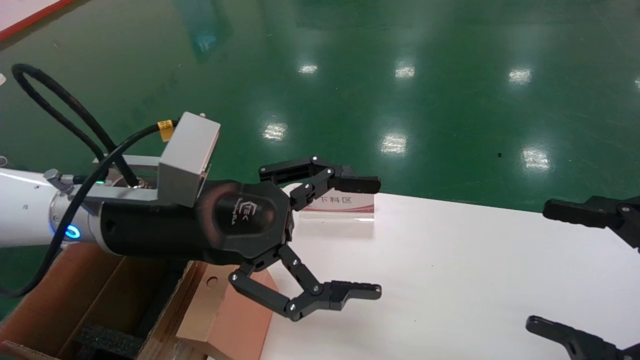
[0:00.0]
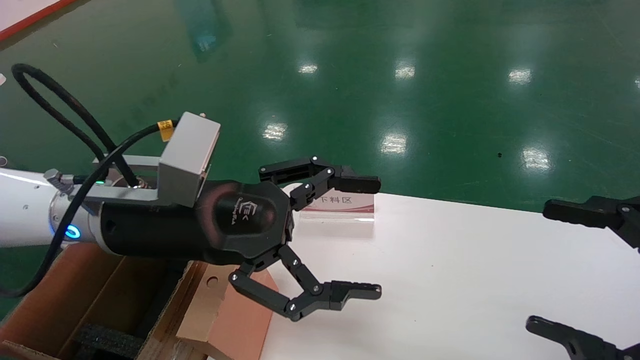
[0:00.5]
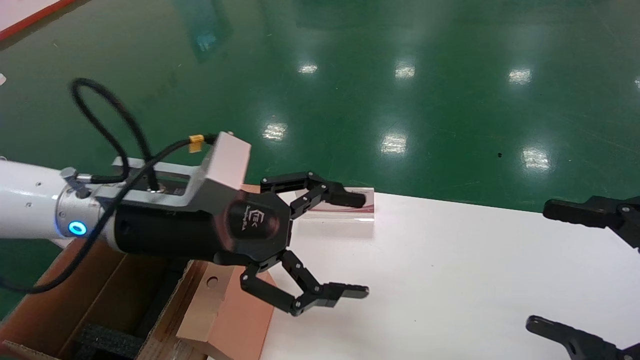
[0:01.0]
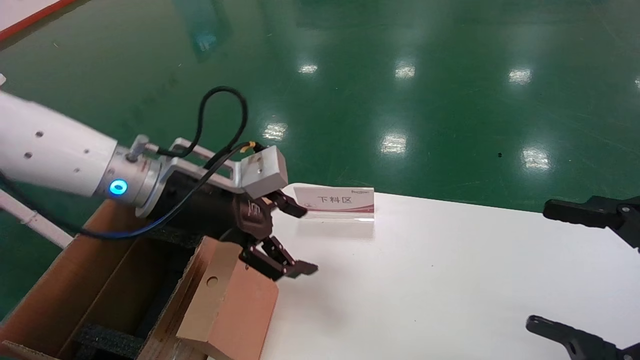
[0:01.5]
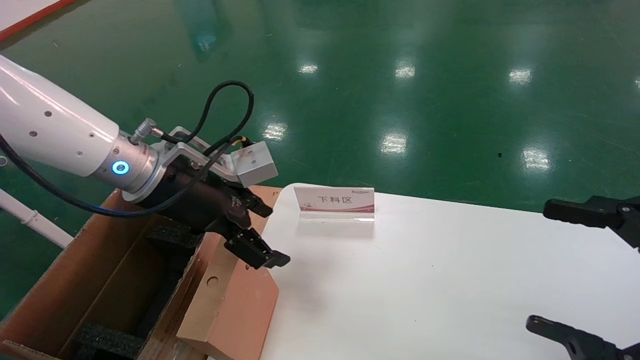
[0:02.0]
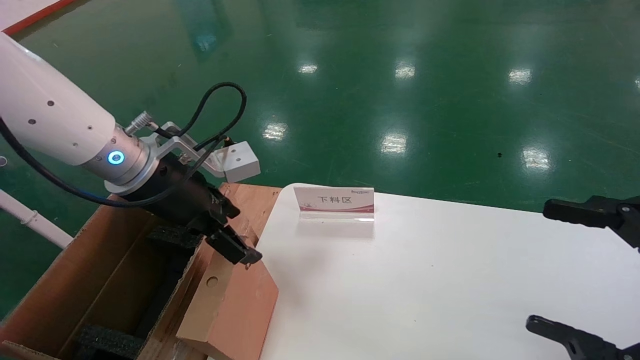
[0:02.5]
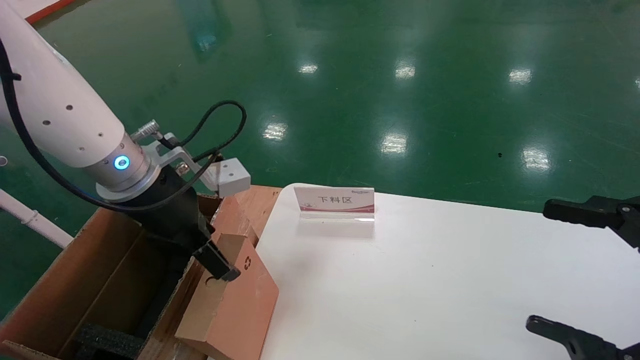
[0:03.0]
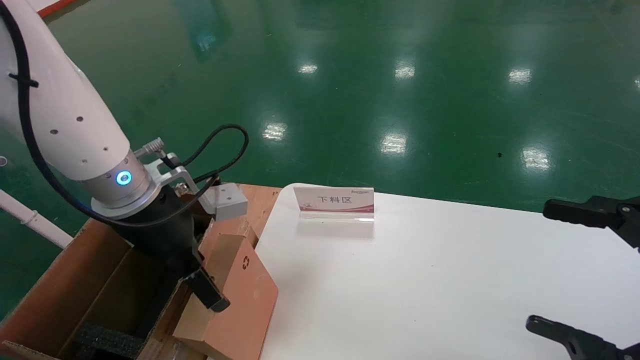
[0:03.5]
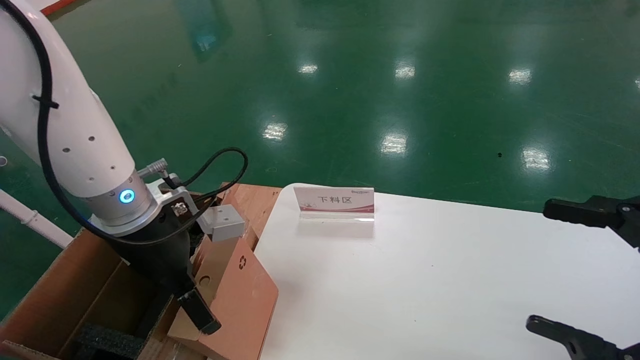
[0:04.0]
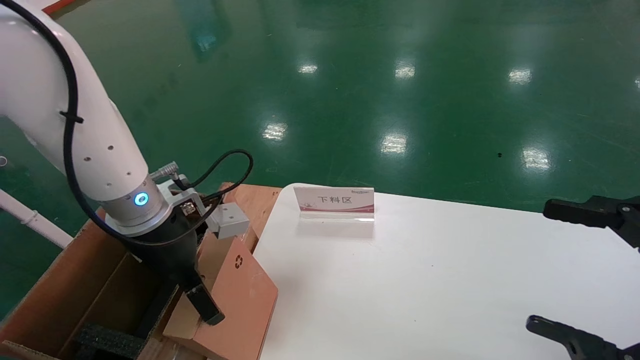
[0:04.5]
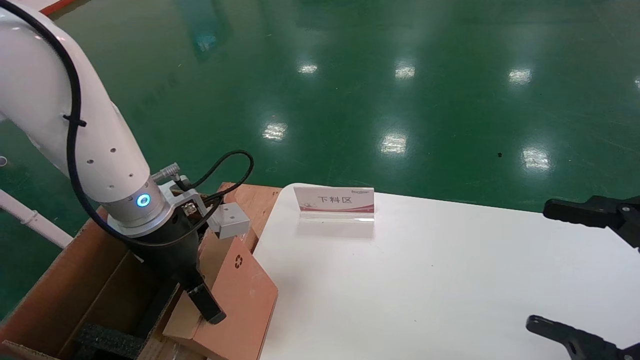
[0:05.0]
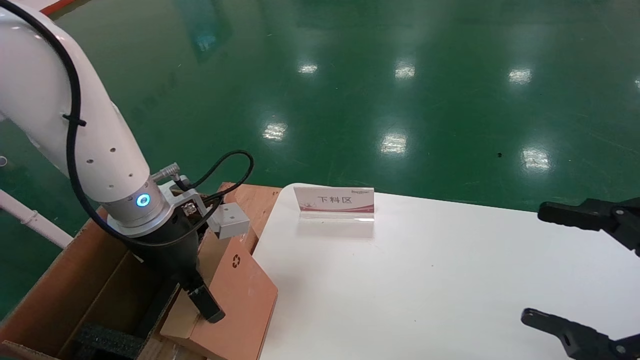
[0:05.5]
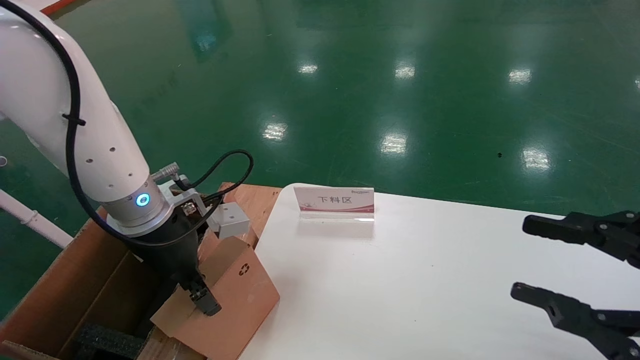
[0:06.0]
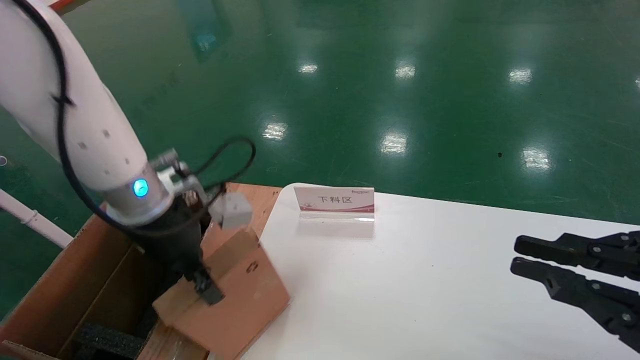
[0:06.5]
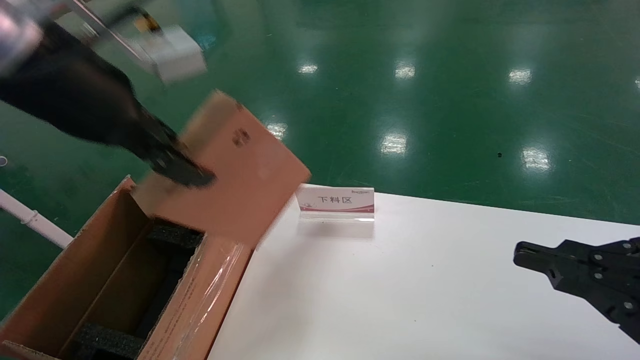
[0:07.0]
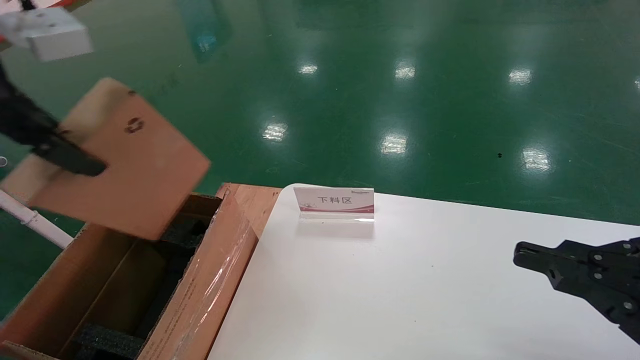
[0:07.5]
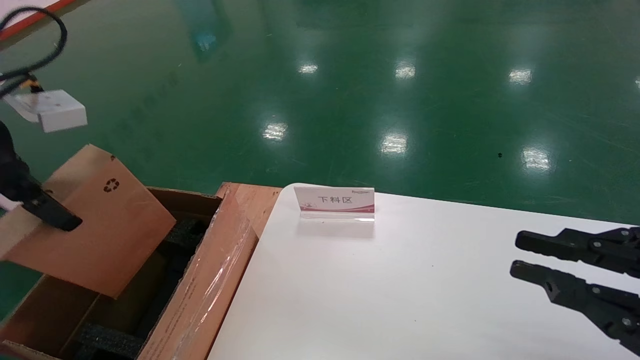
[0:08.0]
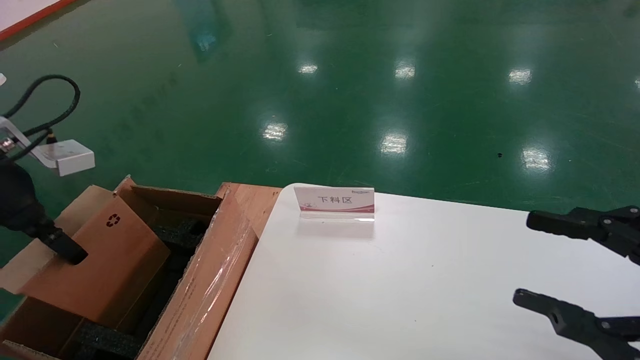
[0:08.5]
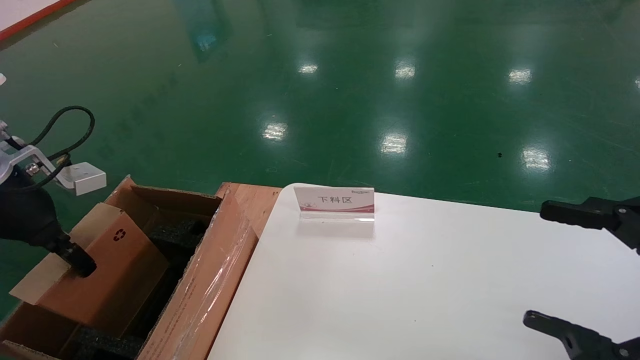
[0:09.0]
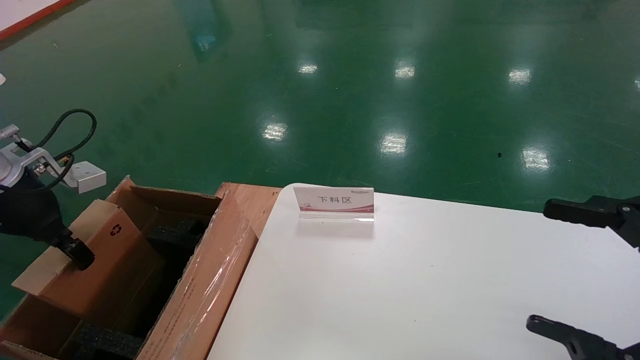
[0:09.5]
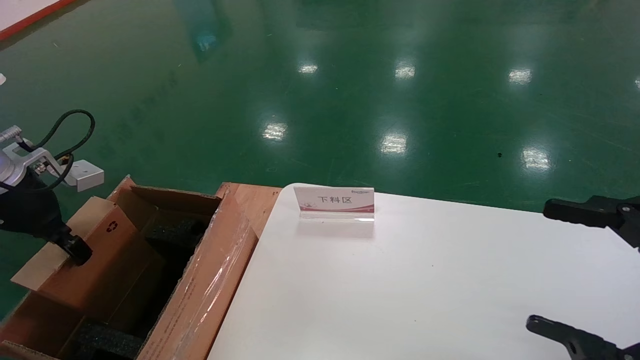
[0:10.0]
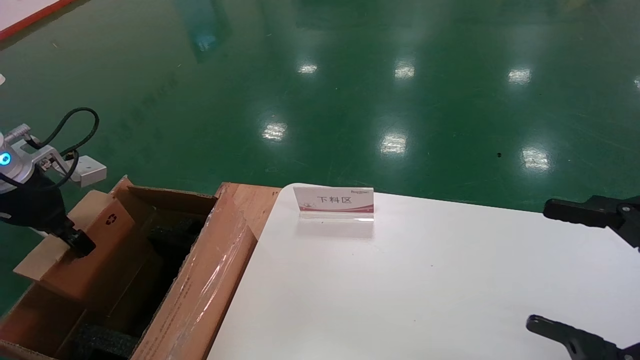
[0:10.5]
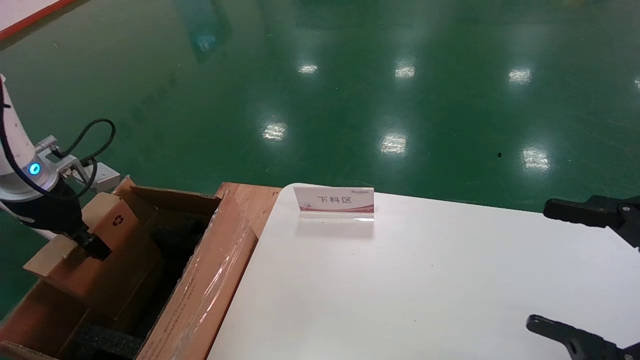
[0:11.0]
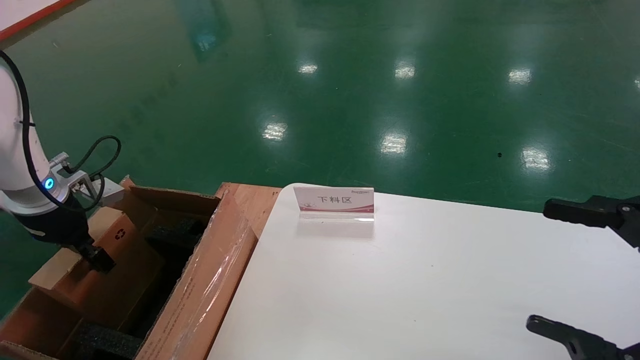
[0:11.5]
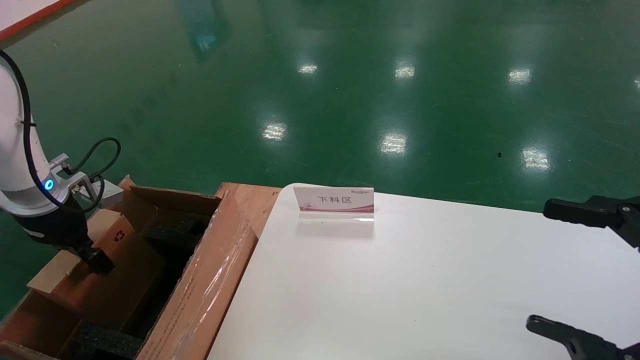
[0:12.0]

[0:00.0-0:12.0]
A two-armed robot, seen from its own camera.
Task of the whole recording: pick up the small cardboard box and load it into the large cardboard box.
Step, 0:01.0 to 0:06.0: Pick up the mouse and power cord box.
0:00.0 to 0:02.0: The left gripper heads forward, covering approximately 5 cm.
0:04.0 to 0:06.0: The left gripper closes, while the right gripper closes.
0:06.0 to 0:08.0: The right gripper closes up; the left gripper shifts roughly 20 cm upward, to the left and backward, and closes up.
0:08.0 to 0:10.0: The left gripper moves downward, to the left and forward, roughly 15 cm. The right gripper opens.
0:10.0 to 0:12.0: The left gripper shifts about 5 cm downward.

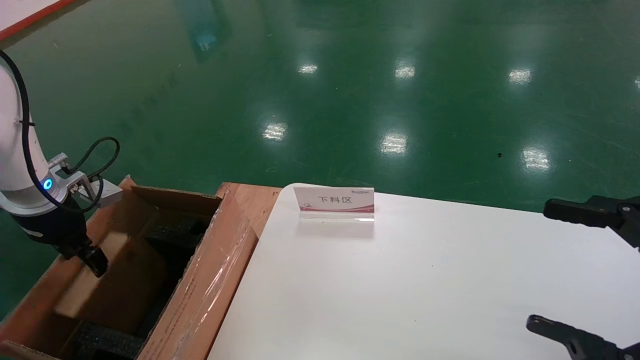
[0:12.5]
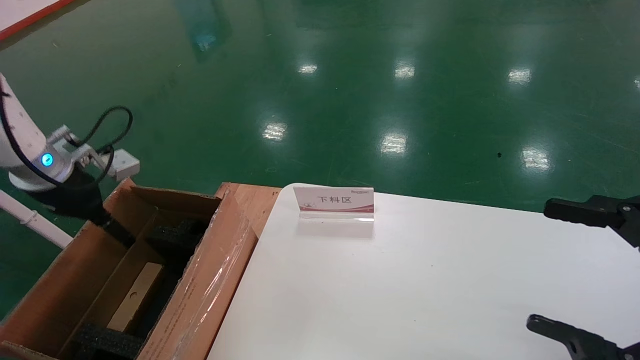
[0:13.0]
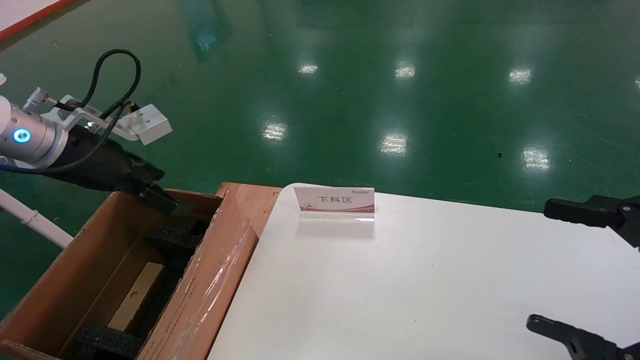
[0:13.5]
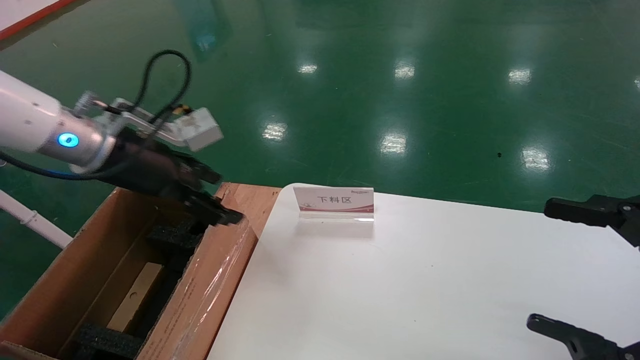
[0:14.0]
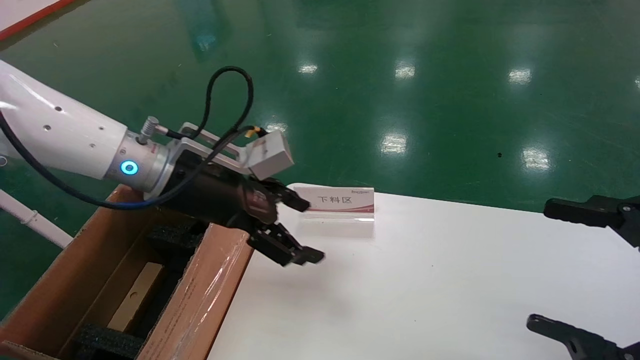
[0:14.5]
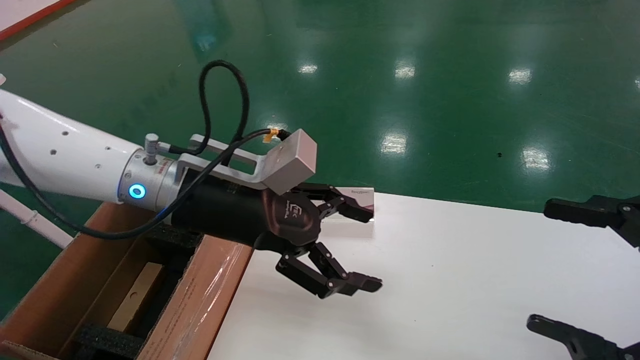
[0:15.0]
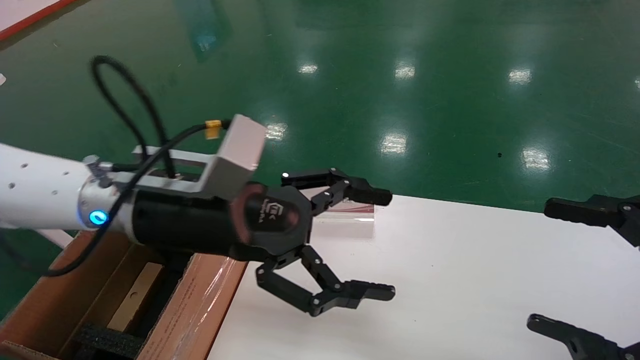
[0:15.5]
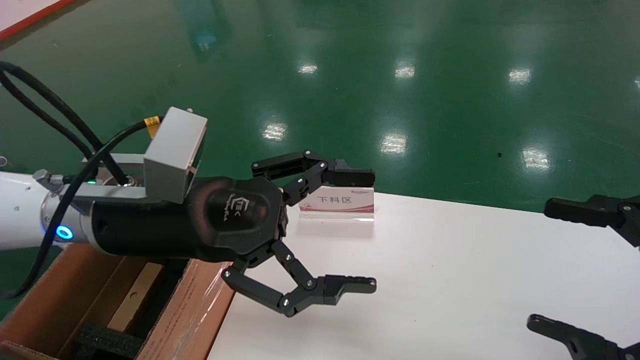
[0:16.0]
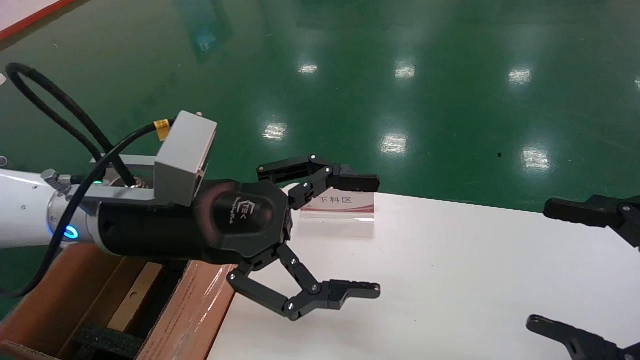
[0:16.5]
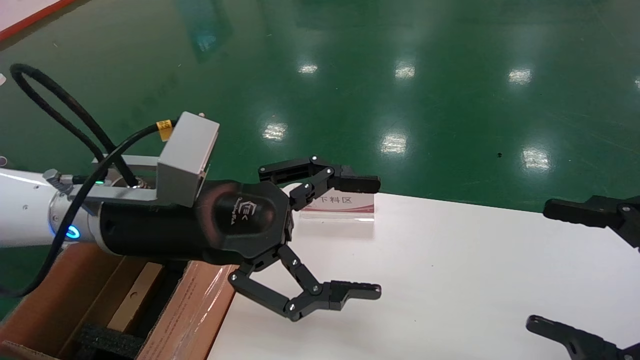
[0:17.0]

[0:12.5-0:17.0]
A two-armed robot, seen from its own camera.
Task of the whole recording: pick up the small cardboard box and load it into the large cardboard box.
0:12.5 to 0:14.5: The left gripper goes roughly 25 cm to the right, and opens.
0:14.5 to 0:17.0: The left gripper shifts some 10 cm backward.

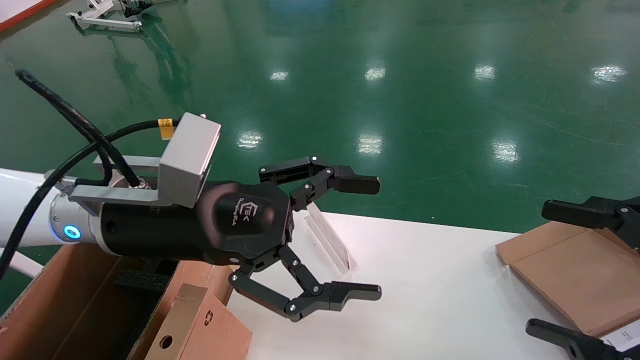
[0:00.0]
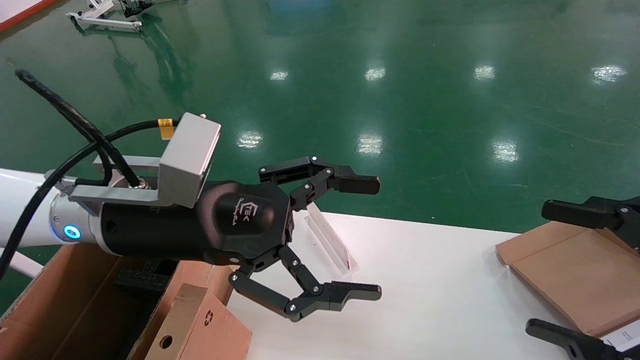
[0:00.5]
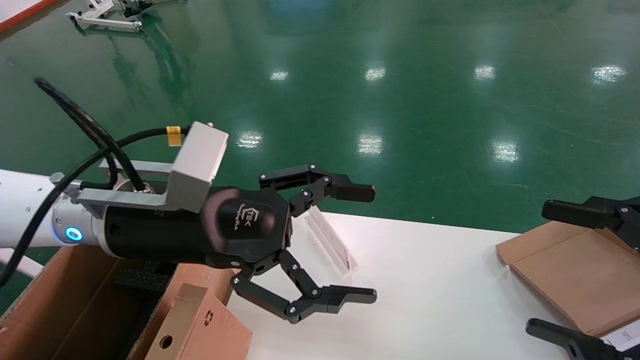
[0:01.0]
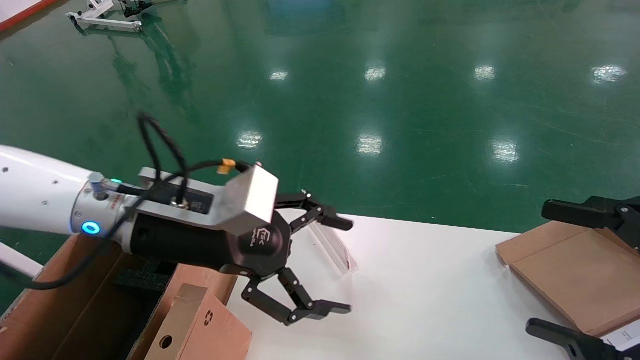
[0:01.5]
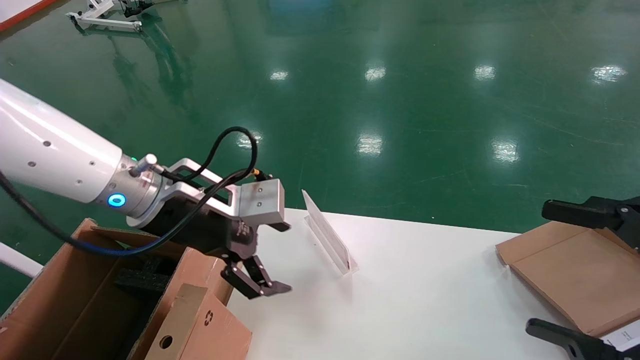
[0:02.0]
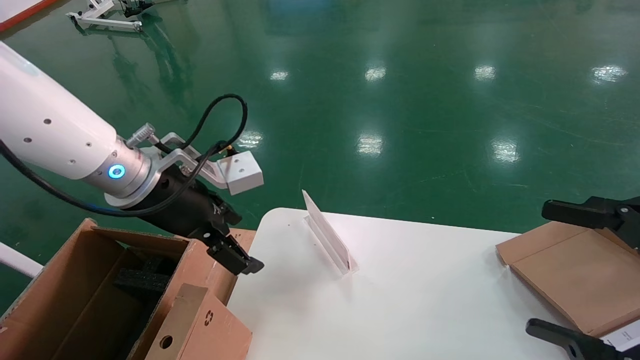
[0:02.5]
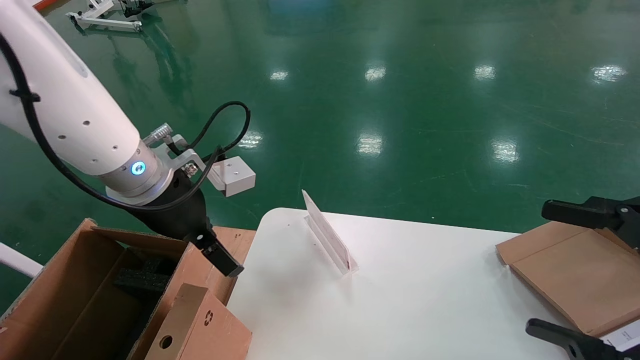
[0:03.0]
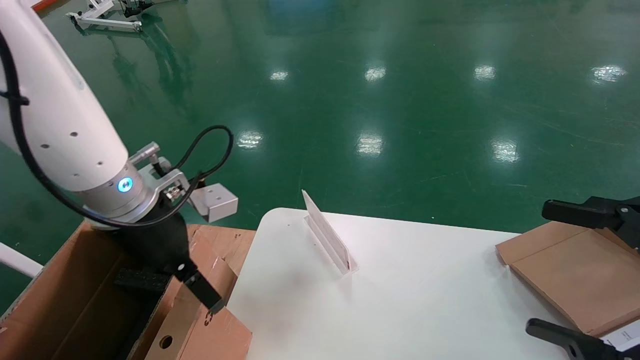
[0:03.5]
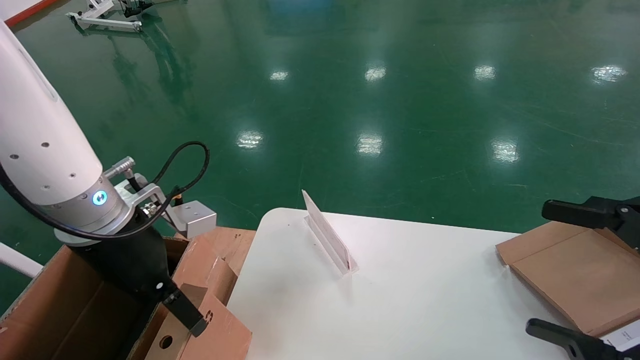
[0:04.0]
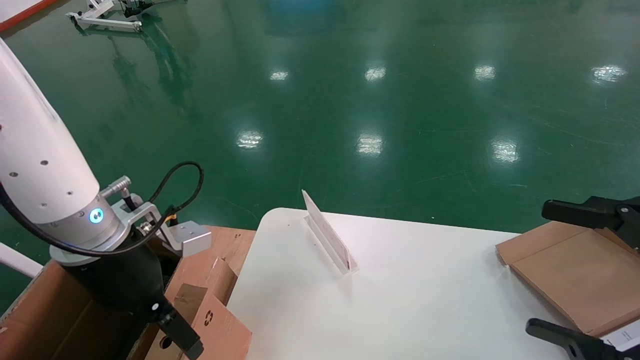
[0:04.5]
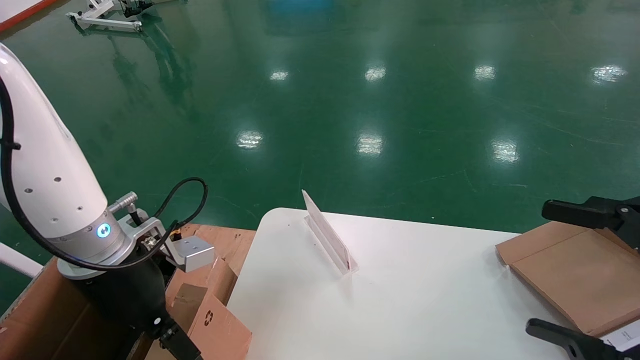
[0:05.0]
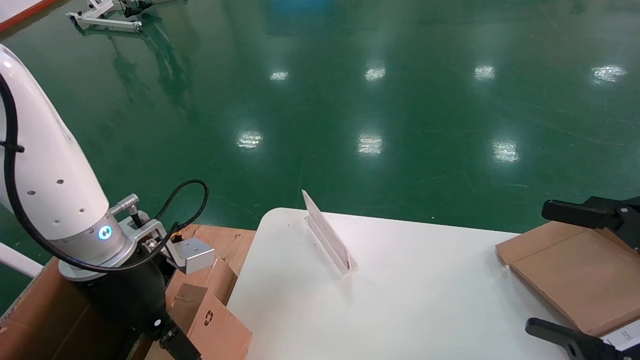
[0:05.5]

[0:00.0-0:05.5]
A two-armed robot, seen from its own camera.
Task of the whole recording: pick up the small cardboard box and load it into the large cardboard box.
0:00.0 to 0:02.0: The left gripper is displaced forward by roughly 5 cm.
0:03.5 to 0:05.5: The left gripper is displaced downward by some 5 cm.
